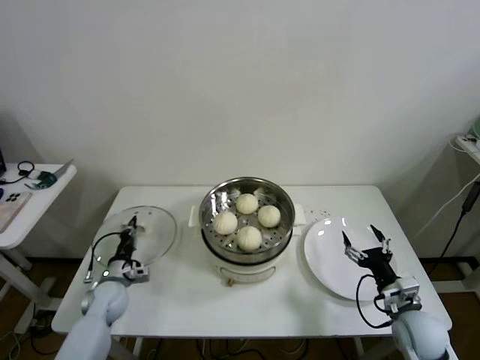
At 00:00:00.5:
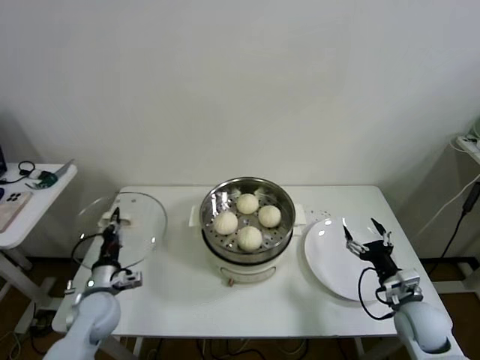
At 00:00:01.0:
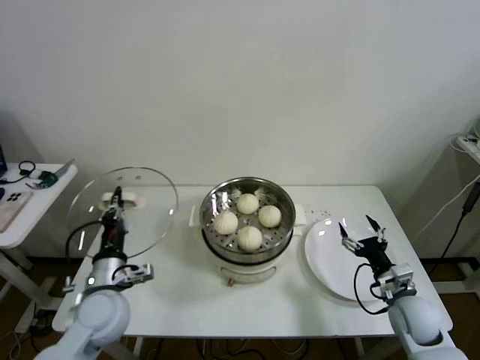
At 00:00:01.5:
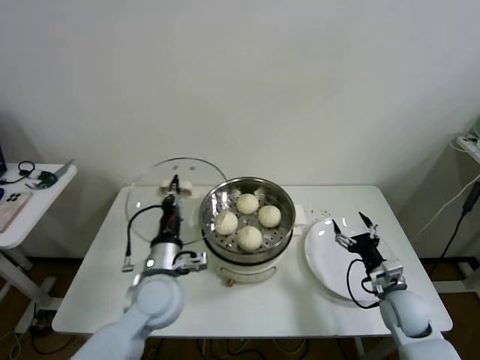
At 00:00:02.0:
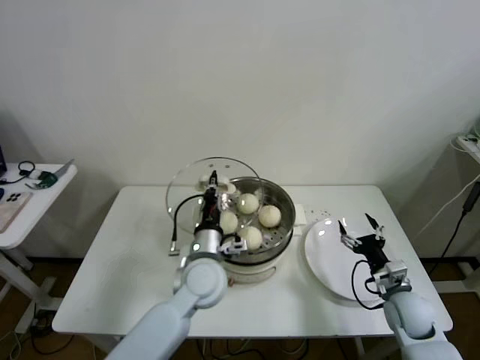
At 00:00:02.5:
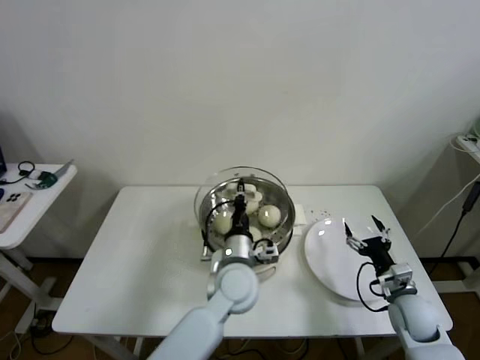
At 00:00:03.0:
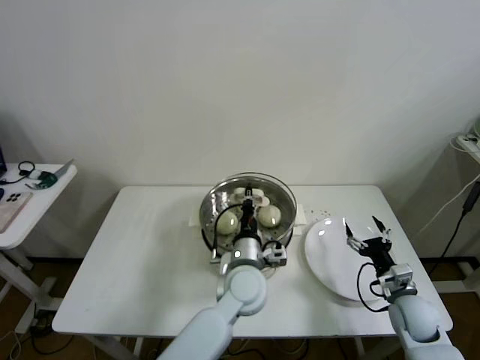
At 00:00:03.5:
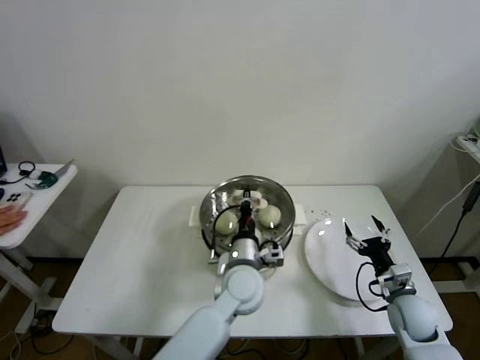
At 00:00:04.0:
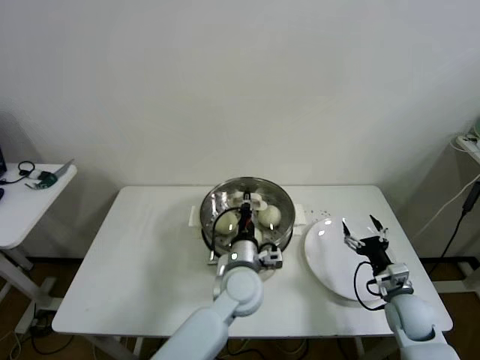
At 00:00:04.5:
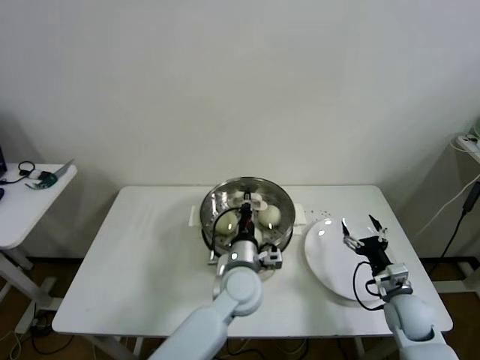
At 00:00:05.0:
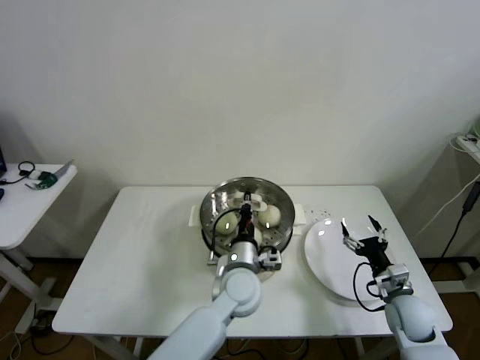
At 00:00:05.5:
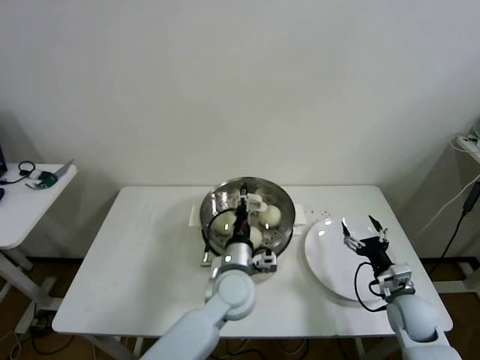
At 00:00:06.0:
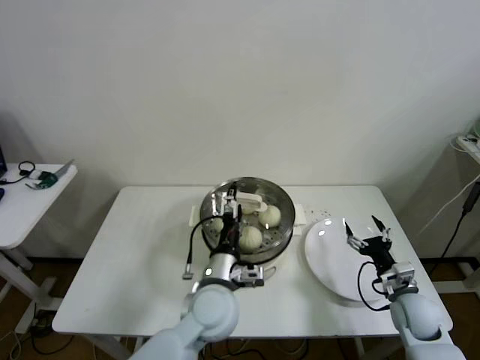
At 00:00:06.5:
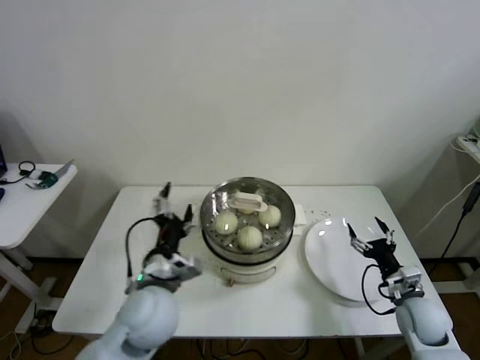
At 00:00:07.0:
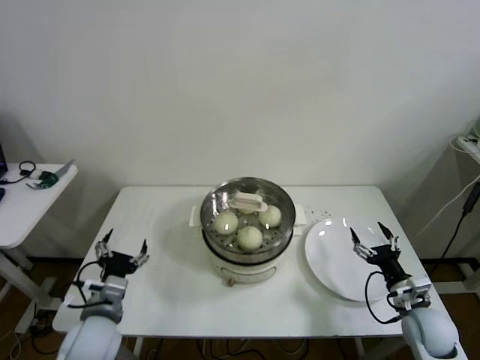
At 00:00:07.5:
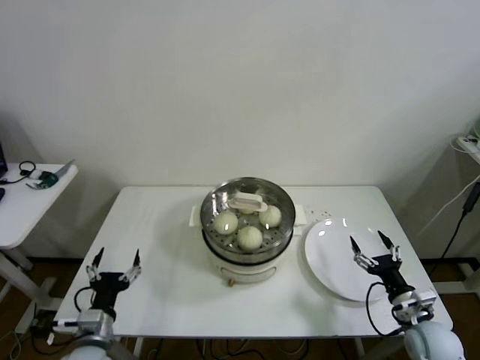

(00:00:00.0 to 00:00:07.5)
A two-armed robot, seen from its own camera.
Task of the whole recording: take steamed baozi put them in steamer then cover it.
Step, 00:00:00.0 - 00:00:05.5: Place the pot lid on the steamer with left gripper.
00:00:00.0 - 00:00:02.0: The left gripper shifts about 30 cm to the right and upward.
00:00:02.0 - 00:00:04.0: The left gripper heads to the right, covering some 10 cm.
00:00:04.0 - 00:00:05.5: The left gripper opens.
00:00:05.5 - 00:00:07.5: The right gripper moves backward, some 5 cm, while the left gripper heads to the left and backward, covering approximately 30 cm, and opens.
